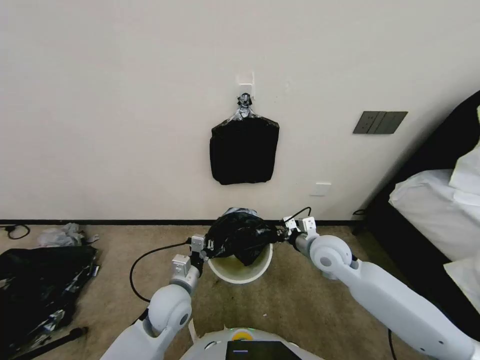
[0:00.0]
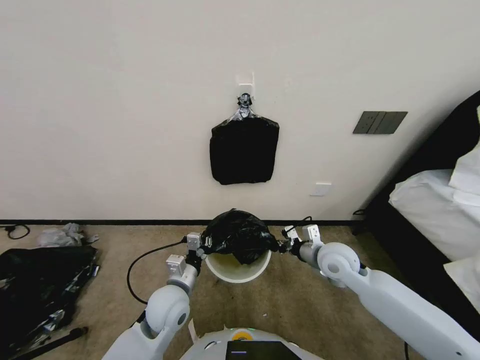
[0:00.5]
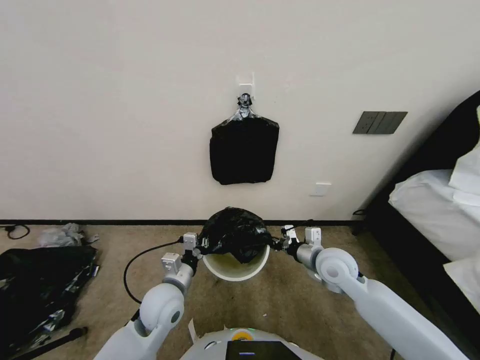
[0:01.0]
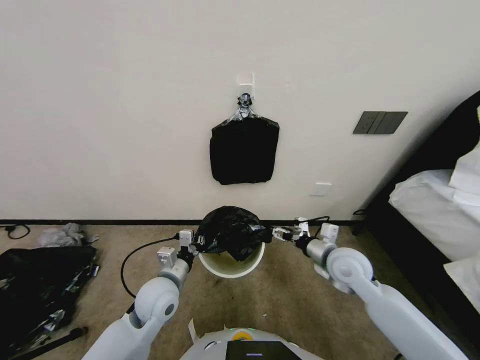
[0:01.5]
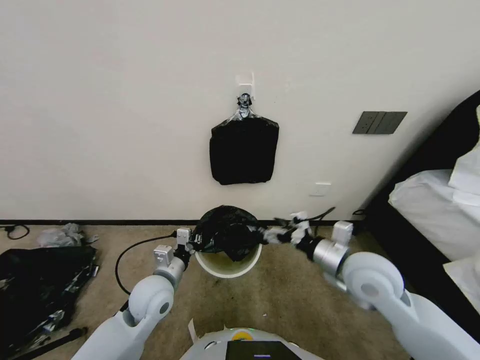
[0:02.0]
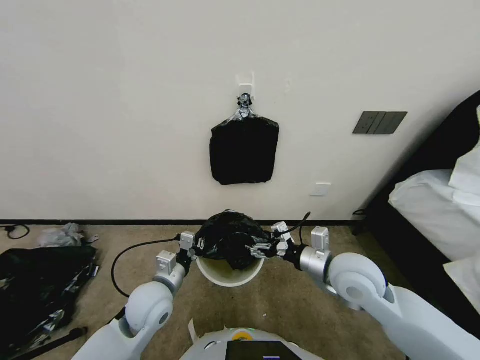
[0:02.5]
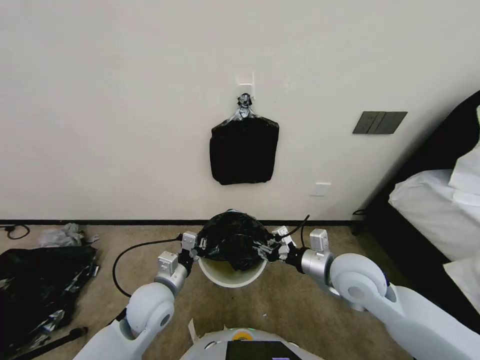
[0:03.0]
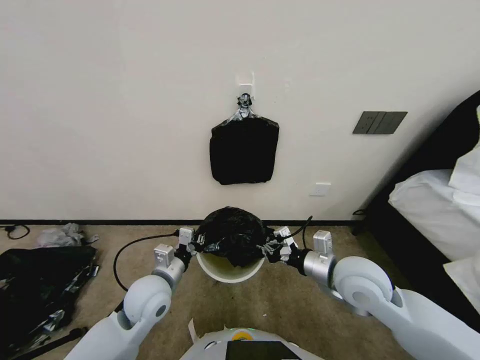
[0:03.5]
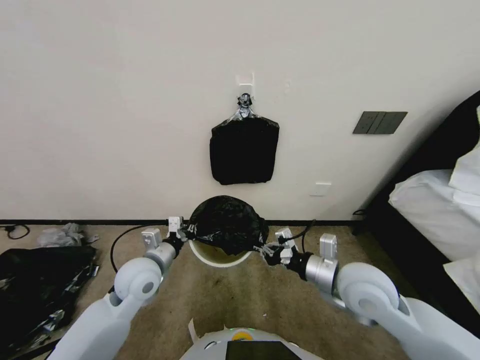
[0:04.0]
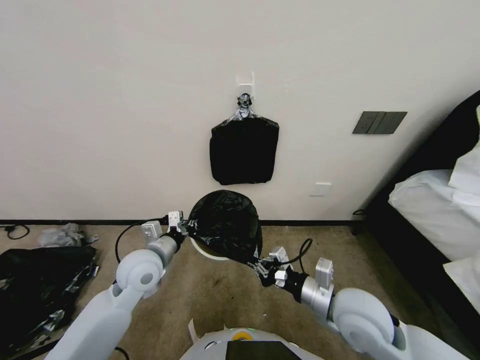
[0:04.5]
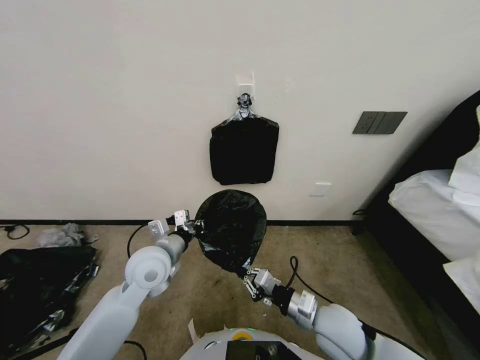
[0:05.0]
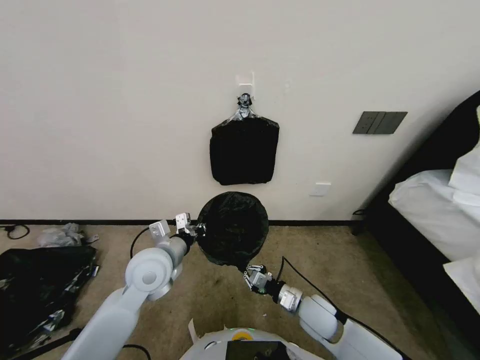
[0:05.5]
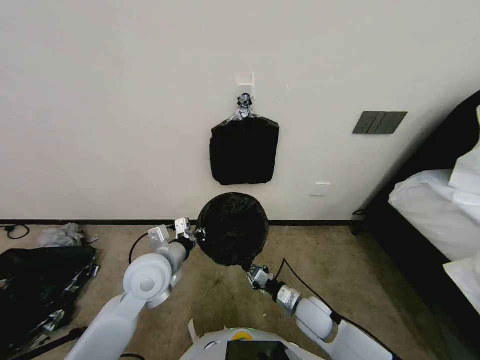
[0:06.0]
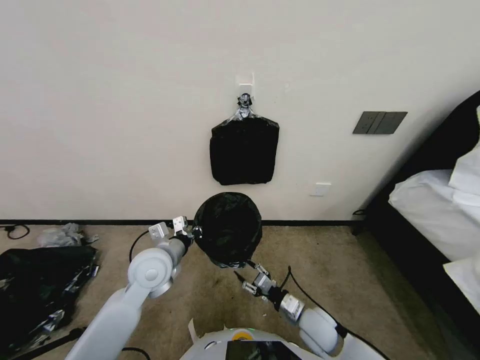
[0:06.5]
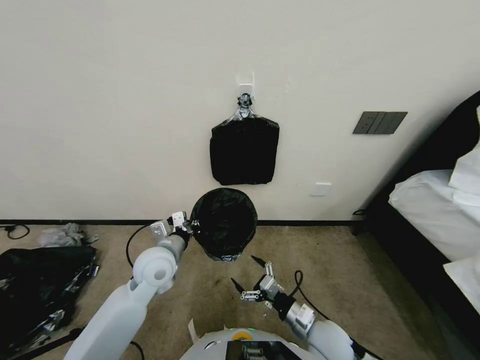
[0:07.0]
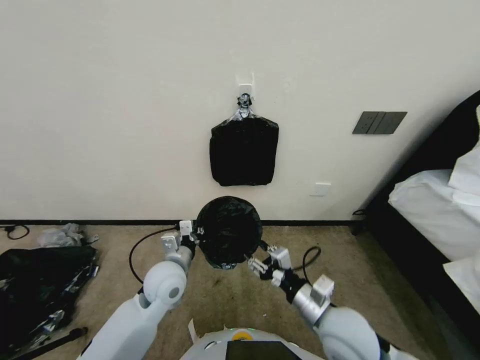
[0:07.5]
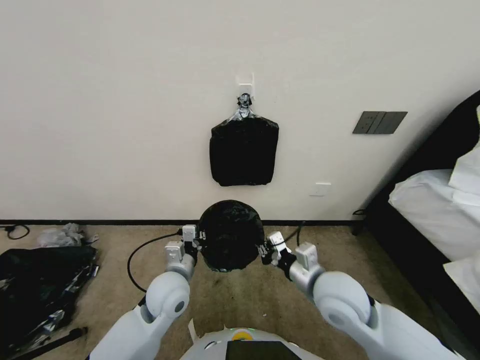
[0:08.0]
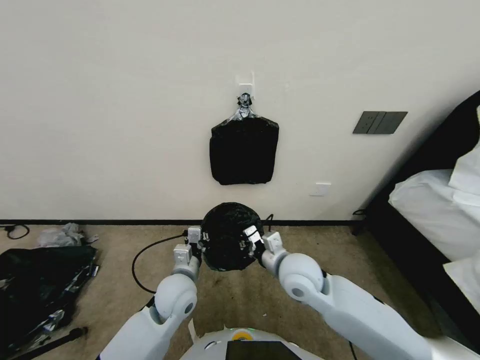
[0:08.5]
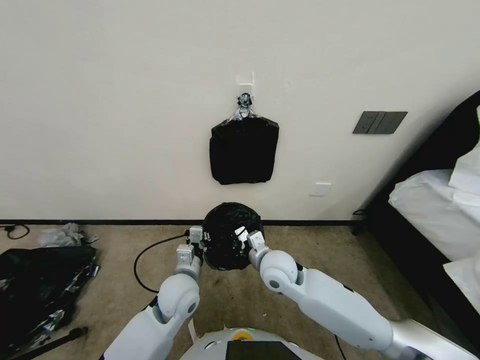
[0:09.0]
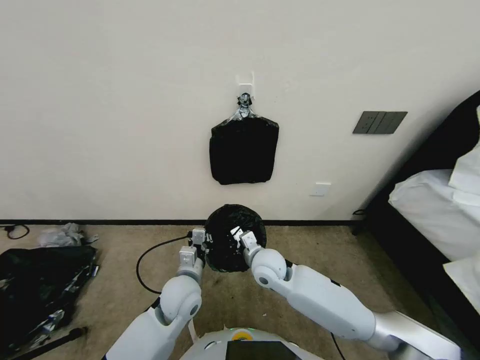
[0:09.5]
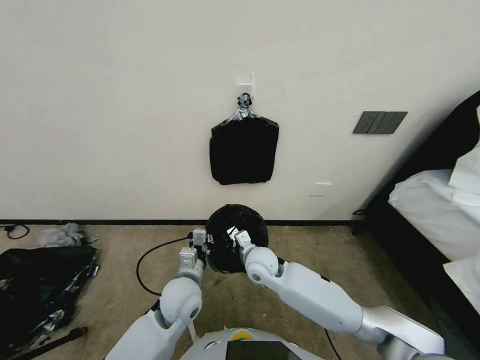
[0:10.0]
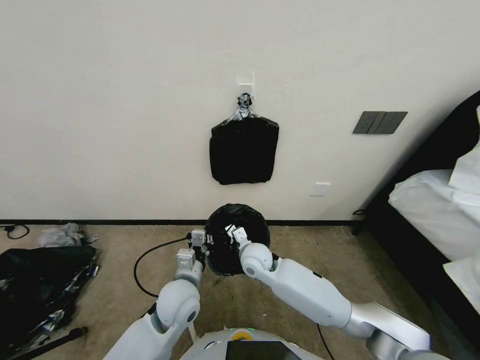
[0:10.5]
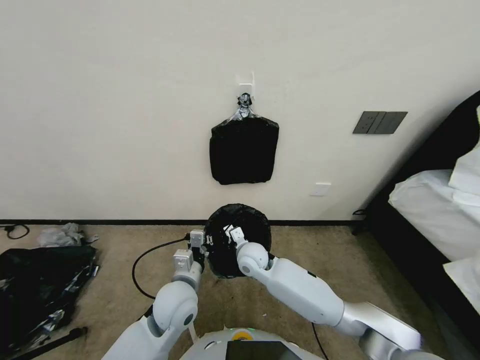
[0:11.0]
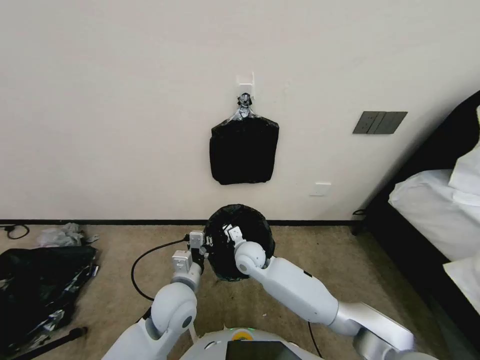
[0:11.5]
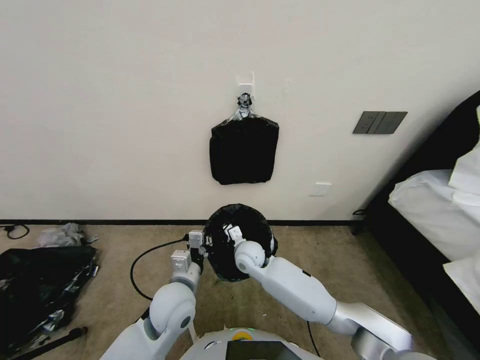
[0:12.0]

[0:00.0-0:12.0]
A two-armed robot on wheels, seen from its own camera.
Task of the whole recording: Place a trash bag onto the trash bin.
0:00.0 to 0:02.0: The right gripper moves backward, roughly 5 cm, and opens its fingers.
0:02.0 to 0:04.0: The right gripper closes up, while the left gripper changes place by some 5 cm.
0:04.0 to 0:06.0: The right gripper heads downward, covering some 20 cm. The left gripper shifts by about 5 cm.
0:06.0 to 0:08.0: The right gripper is displaced upward by approximately 20 cm, and opens, then closes again. The left gripper travels downward by approximately 5 cm.
0:08.0 to 0:10.0: The right gripper is displaced to the left, forward and downward by approximately 20 cm.
0:10.0 to 0:12.0: The right gripper moves approximately 5 cm.

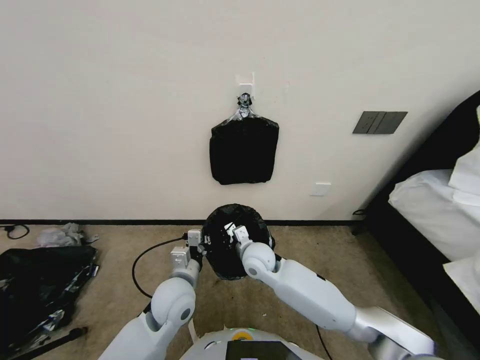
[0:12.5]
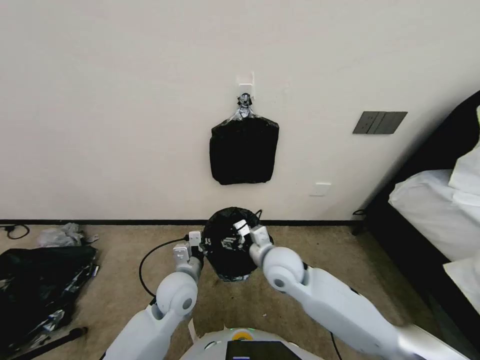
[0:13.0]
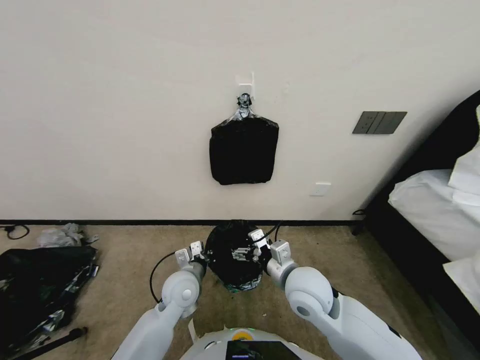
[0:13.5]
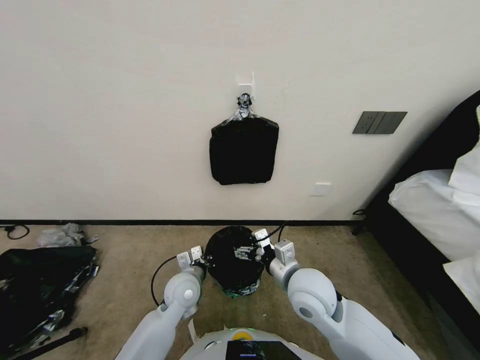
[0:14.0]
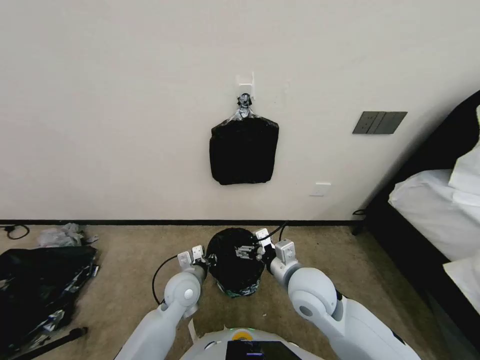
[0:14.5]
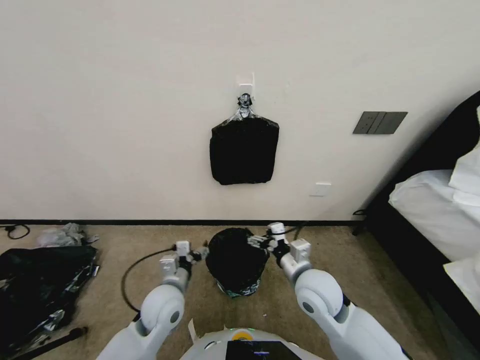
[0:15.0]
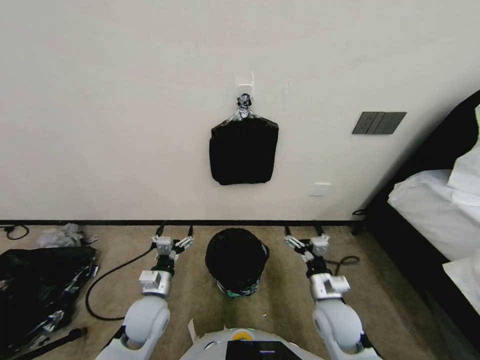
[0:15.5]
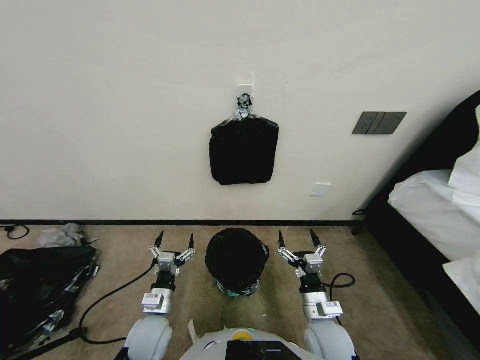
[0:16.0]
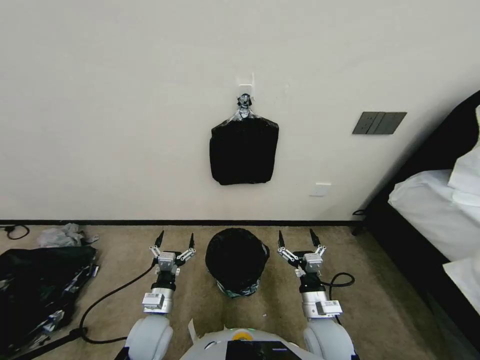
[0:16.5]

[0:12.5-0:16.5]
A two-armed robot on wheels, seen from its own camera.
Task of the whole recording: Place a trash bag onto the trash bin.
0:12.5 to 0:14.5: The left gripper heads downward, covering roughly 5 cm. The right gripper goes about 15 cm backward, to the right and upward, and opens its fingers.
0:14.5 to 0:16.5: The left gripper goes about 10 cm backward and to the left, and opens its fingers, while the right gripper goes roughly 15 cm downward, backward and to the right.
